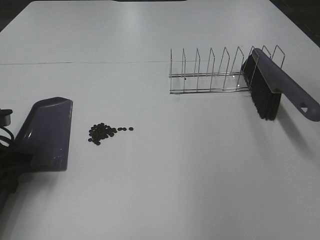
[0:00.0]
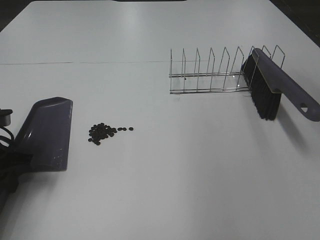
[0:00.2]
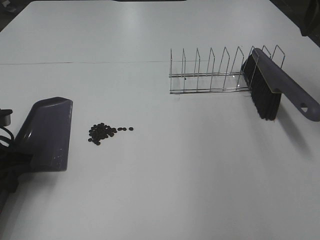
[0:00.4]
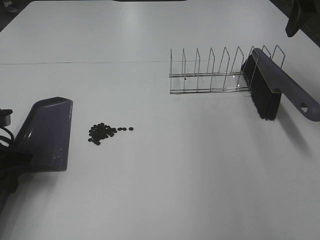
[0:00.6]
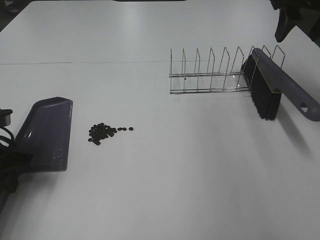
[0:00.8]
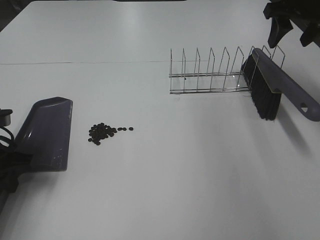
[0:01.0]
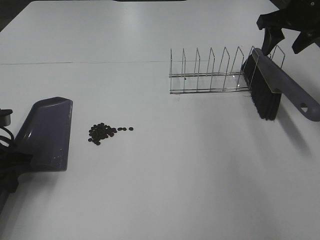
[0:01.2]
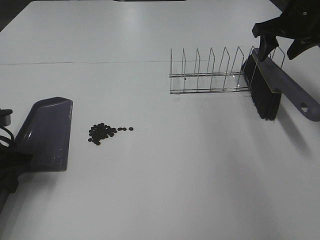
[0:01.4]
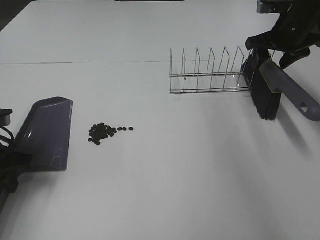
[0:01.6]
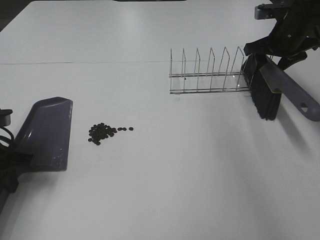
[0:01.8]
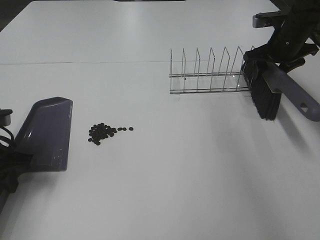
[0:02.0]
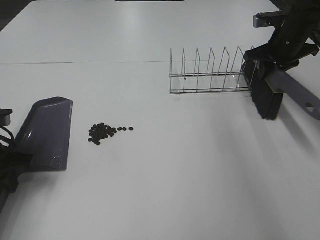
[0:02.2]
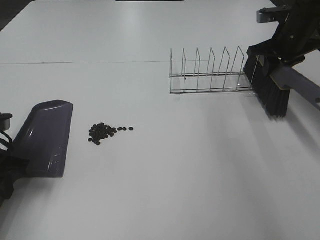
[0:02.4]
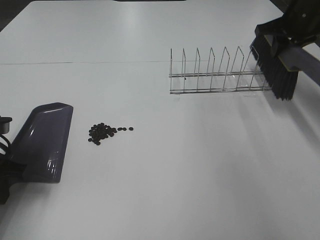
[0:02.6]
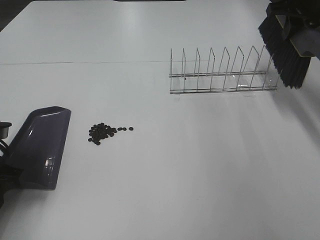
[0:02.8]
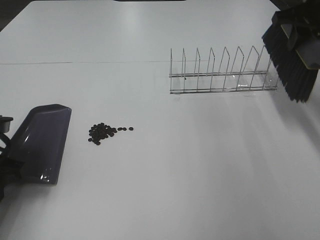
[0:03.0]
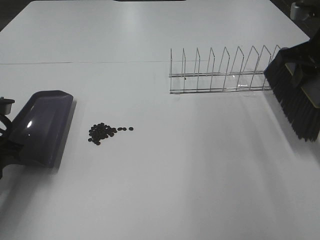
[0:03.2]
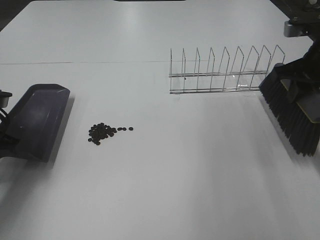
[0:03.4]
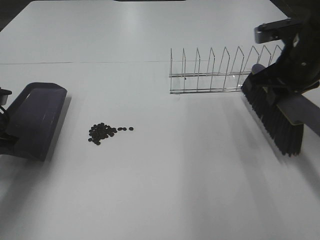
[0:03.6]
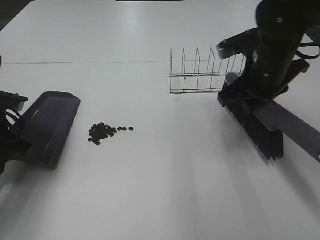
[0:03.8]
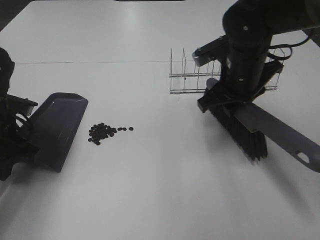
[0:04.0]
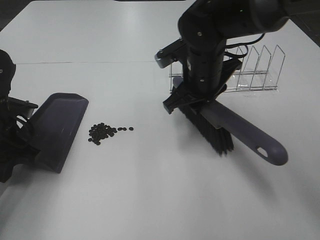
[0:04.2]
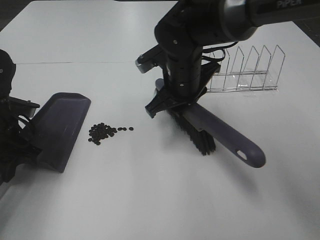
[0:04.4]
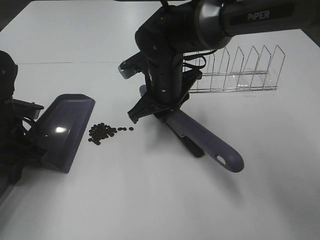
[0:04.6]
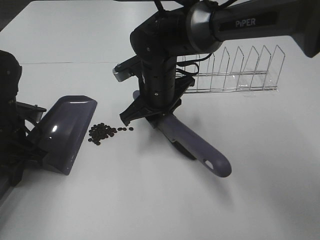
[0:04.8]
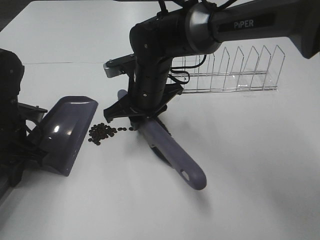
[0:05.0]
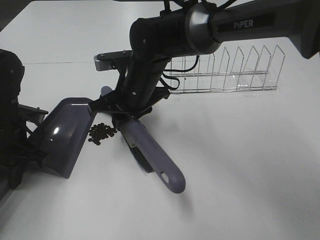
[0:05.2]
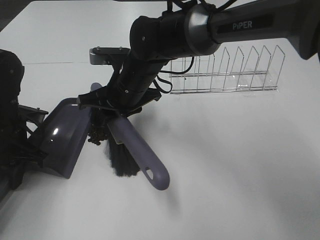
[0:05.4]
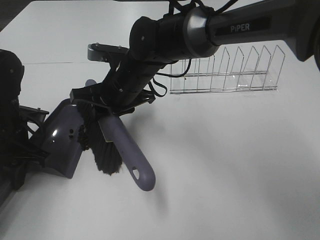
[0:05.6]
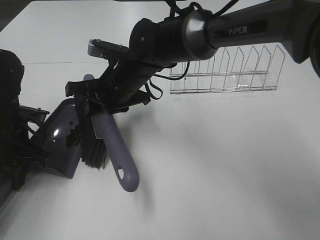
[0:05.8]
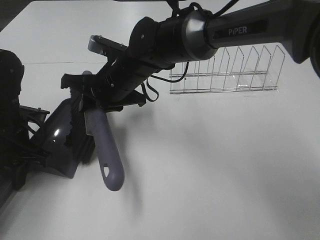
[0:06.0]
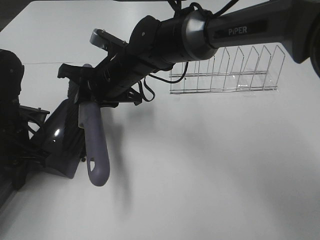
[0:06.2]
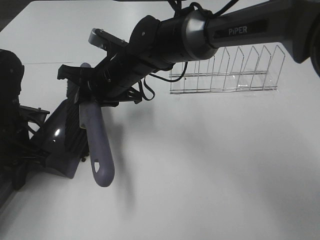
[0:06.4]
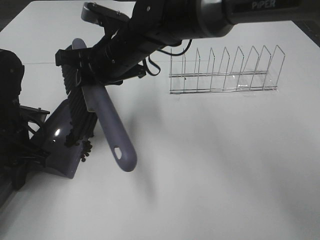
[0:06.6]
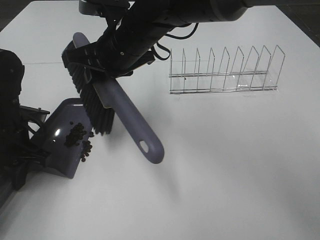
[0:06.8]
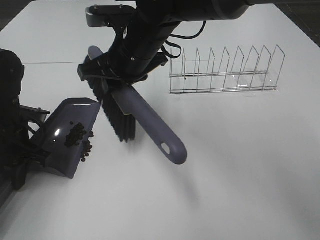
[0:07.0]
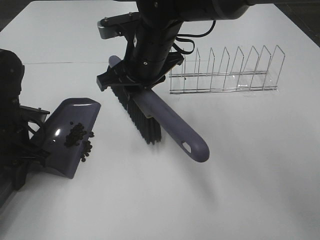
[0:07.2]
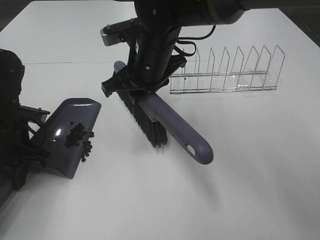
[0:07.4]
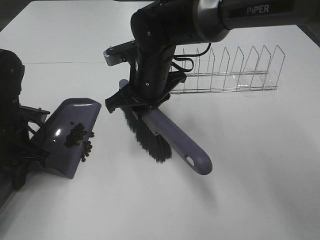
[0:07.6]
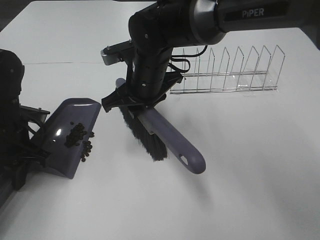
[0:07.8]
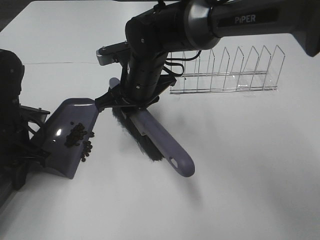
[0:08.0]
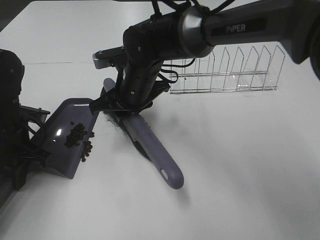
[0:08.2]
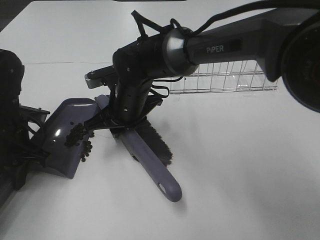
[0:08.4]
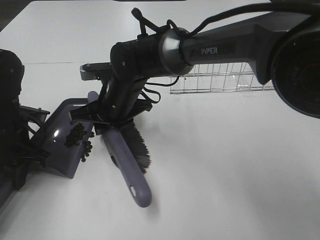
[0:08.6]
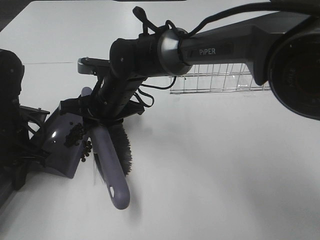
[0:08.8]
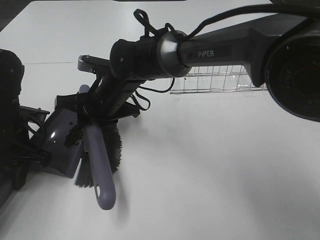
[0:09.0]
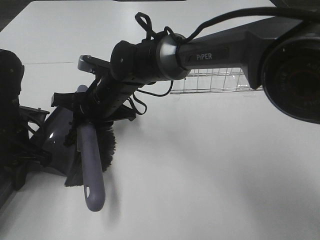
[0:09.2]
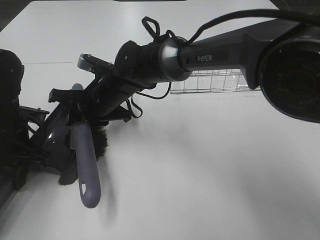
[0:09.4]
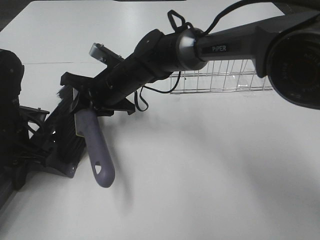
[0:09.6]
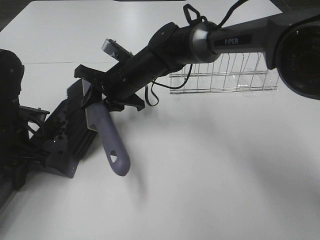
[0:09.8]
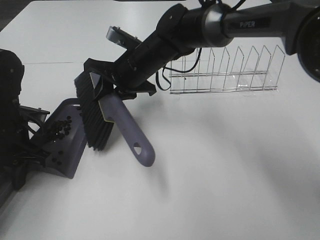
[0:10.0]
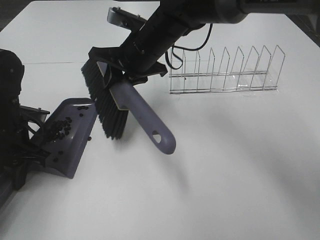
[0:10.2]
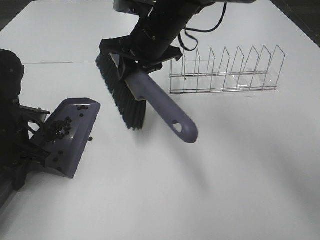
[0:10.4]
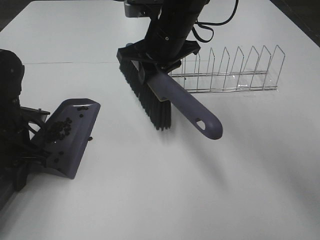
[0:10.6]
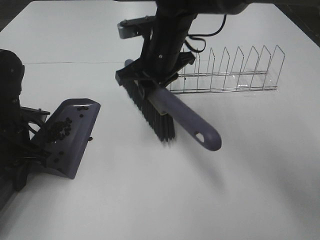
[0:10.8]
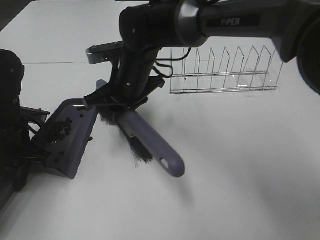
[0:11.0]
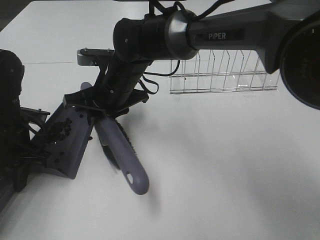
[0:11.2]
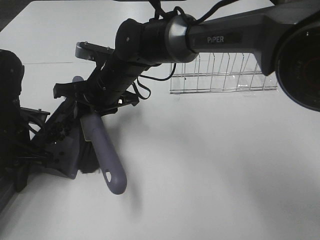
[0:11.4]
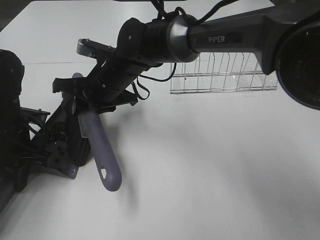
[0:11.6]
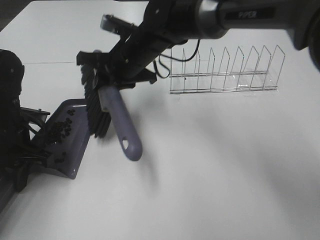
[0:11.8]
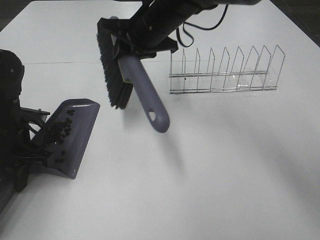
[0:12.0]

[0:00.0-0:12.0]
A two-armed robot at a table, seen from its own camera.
Task of the whole recording: Sweep Coffee Bean.
Step, 0.0 to 2.2 s: Right hand:grab the broom.
Step, 2.4 to 11.6 s: Right hand:sweep the coffee beans into the dustpan.
0.0 to 1.6 s: The right gripper is displaced forward and downward by approximately 30 cm.
1.6 to 3.0 s: The right gripper moves upward and backward, approximately 10 cm, and closes up.
3.0 to 4.4 s: The left gripper moves roughly 5 cm. Meanwhile the right gripper heads to the left and downward, covering about 25 cm.
4.4 to 6.0 s: The right gripper is displaced to the left by about 10 cm.
7.6 to 9.0 s: The right gripper travels to the left by roughly 5 cm.
9.0 to 10.4 s: The right gripper travels upward and to the right by roughly 15 cm.
10.4 to 12.0 s: The right gripper reaches some 10 cm to the left, then returns.

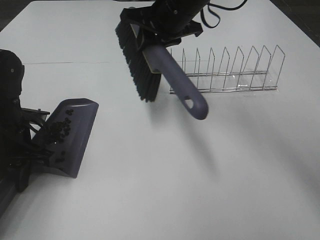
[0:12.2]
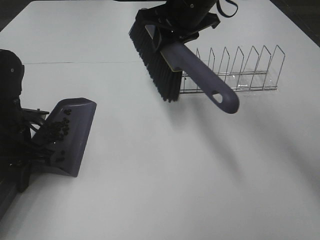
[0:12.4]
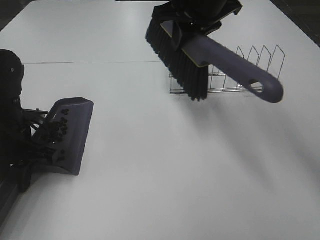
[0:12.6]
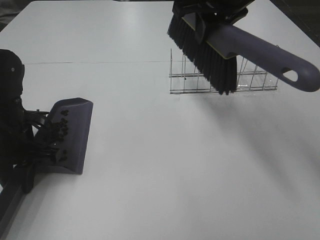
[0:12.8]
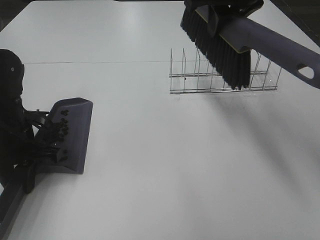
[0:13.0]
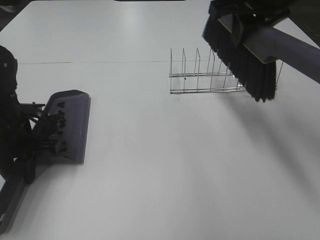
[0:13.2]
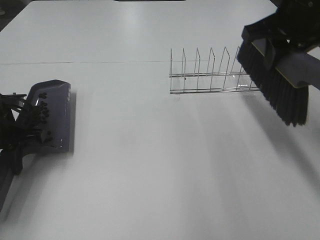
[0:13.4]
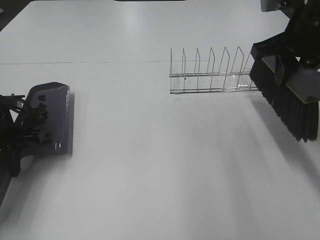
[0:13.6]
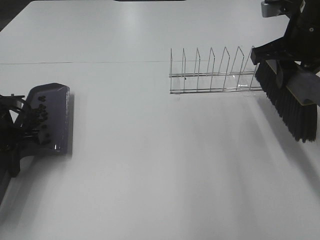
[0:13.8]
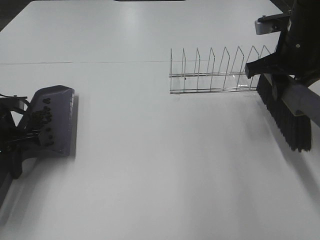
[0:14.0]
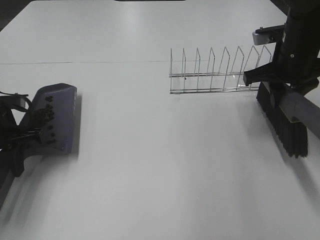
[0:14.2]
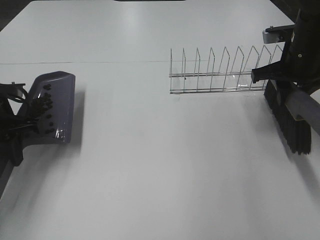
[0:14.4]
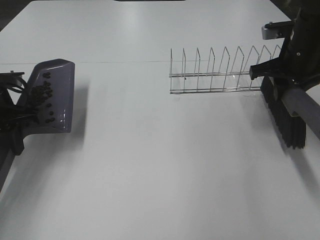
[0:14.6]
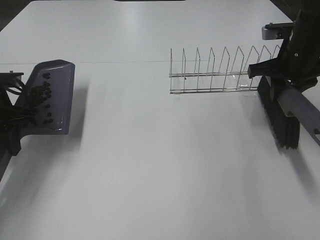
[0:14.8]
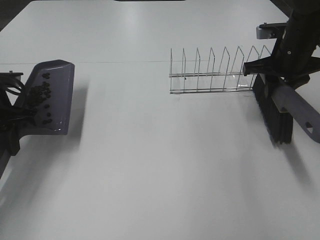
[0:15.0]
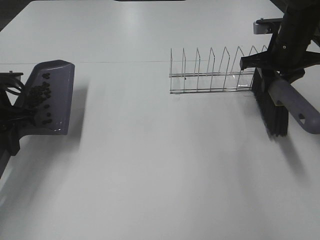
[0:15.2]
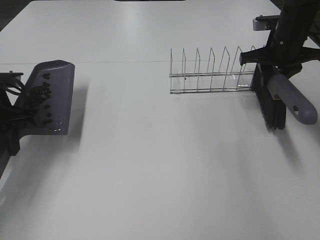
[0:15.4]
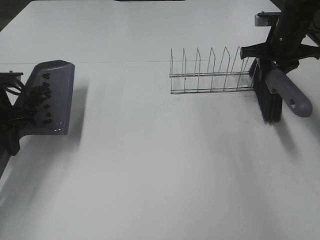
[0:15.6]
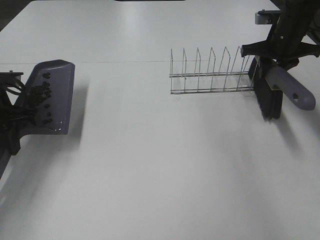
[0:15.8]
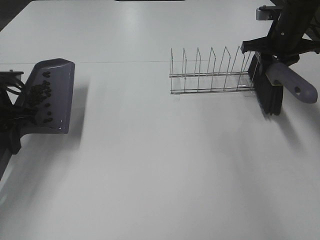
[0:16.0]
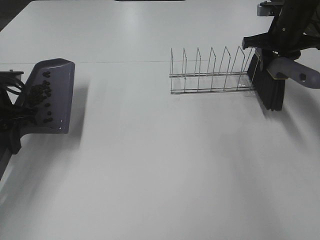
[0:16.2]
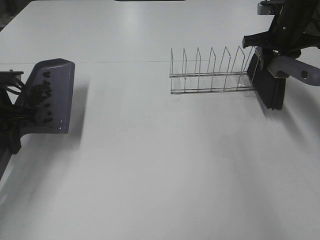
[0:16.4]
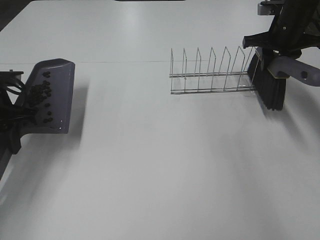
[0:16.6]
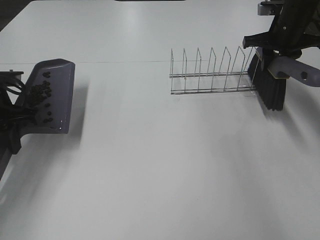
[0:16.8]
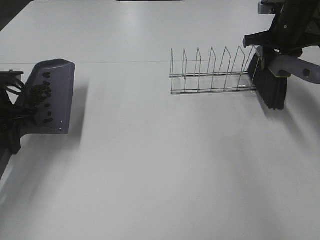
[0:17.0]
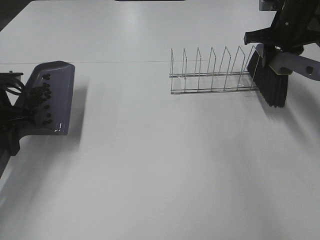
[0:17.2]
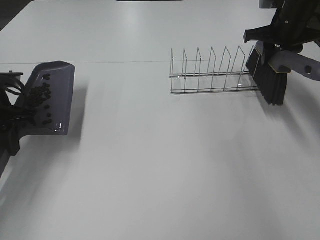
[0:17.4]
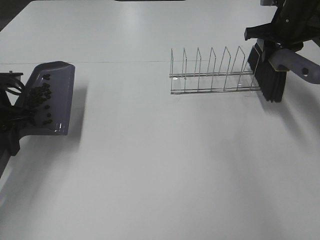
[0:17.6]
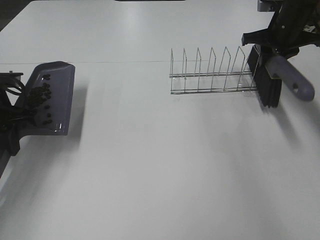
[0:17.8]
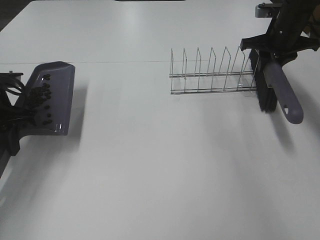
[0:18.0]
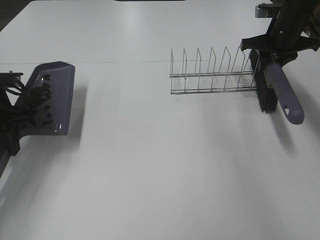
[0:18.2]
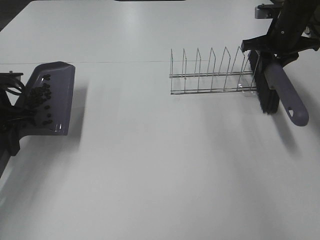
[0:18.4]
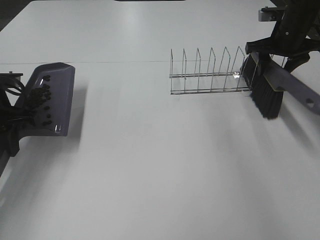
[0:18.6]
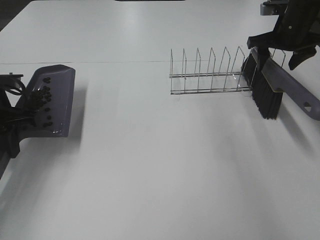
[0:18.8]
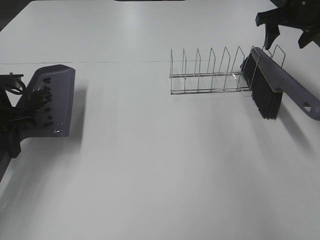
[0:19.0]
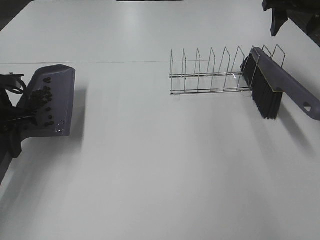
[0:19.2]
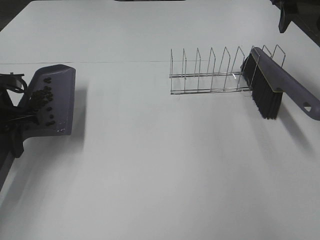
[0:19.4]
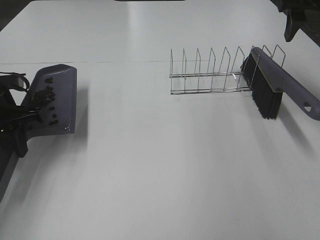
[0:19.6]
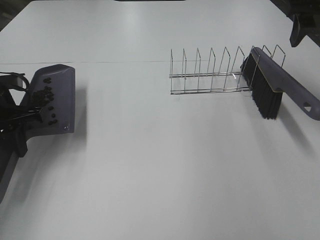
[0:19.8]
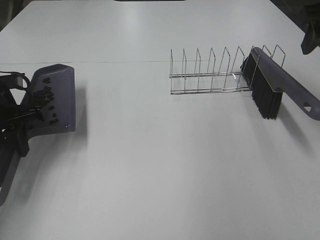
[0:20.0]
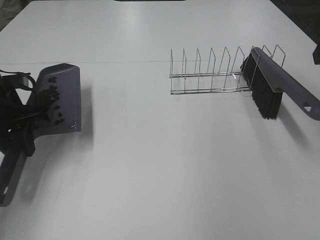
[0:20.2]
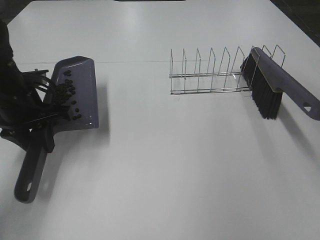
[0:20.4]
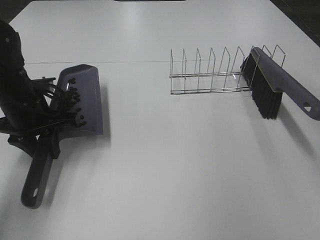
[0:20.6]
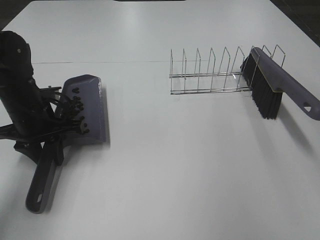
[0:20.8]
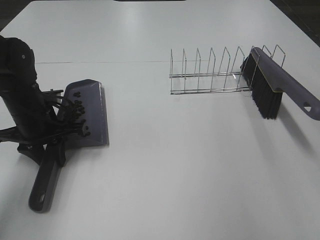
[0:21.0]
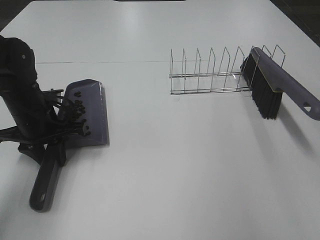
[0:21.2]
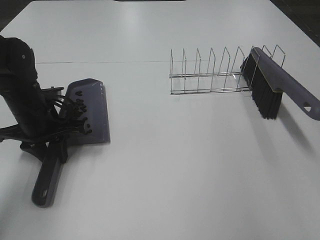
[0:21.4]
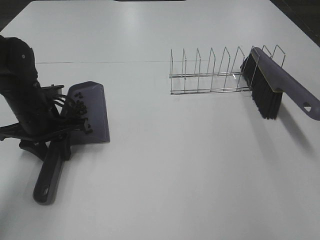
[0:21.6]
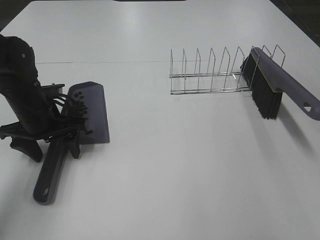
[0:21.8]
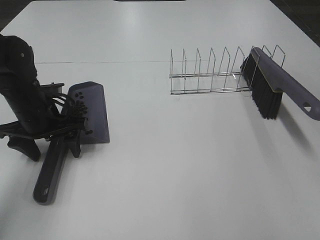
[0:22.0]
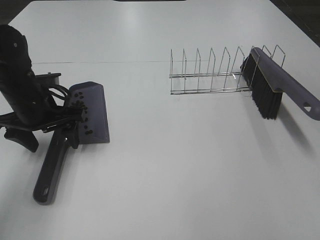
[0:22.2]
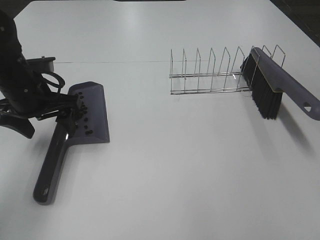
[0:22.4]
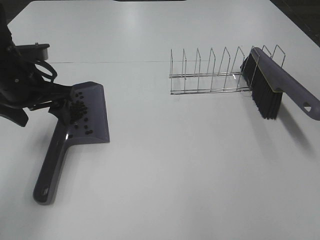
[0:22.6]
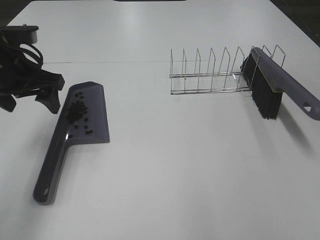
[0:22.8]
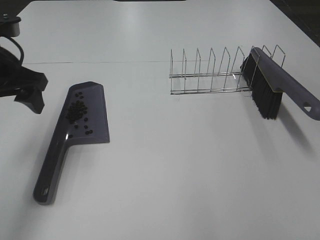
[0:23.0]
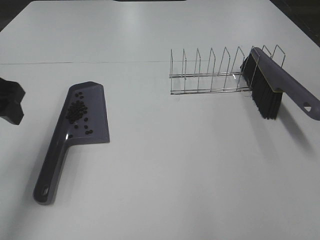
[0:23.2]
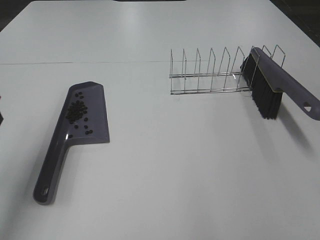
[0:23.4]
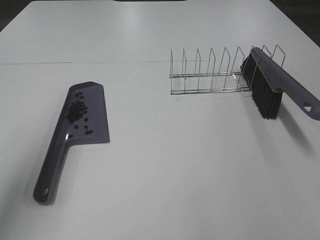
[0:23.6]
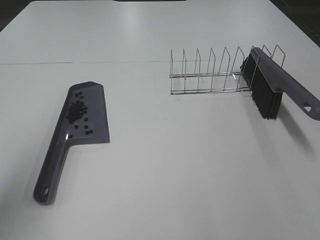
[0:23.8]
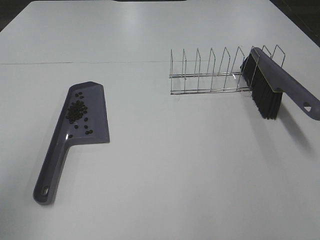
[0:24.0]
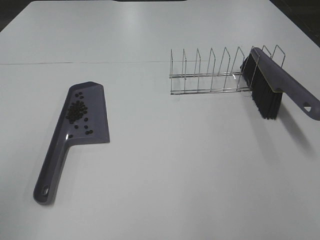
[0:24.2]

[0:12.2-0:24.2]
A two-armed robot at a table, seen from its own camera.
Task of the whole recording: Sweep Coffee Bean.
Step, 12.2 to 18.4 s: Right hand:place the broom on the rack.
Step, 18.6 to 21.8 s: Left hand:place the dustpan on the table.
12.2 to 13.8 s: The right gripper travels to the right and backward by roughly 20 cm.
13.8 to 15.2 s: The right gripper goes roughly 10 cm forward and downward.
15.2 to 16.6 s: The right gripper heads forward, covering some 5 cm.
16.6 to 18.2 s: The grippers make only small movements.
18.2 to 19.8 s: The right gripper heads upward and backward, covering roughly 20 cm, and opens its fingers.
19.8 to 21.2 s: The left gripper shifts roughly 10 cm to the right and downward. Meanwhile the right gripper shifts some 25 cm backward.
21.2 to 22.6 s: The left gripper moves upward, roughly 10 cm, and opens.
22.6 to 24.2 s: The left gripper travels backward and upward by approximately 30 cm.
